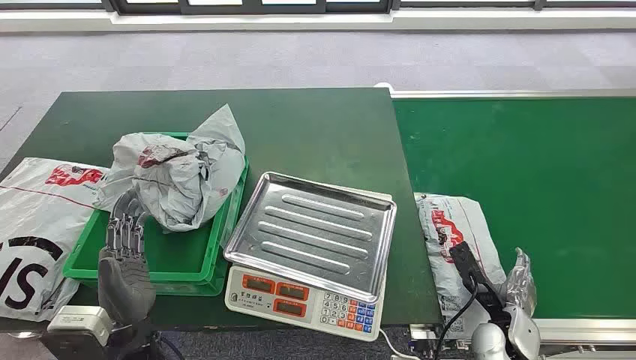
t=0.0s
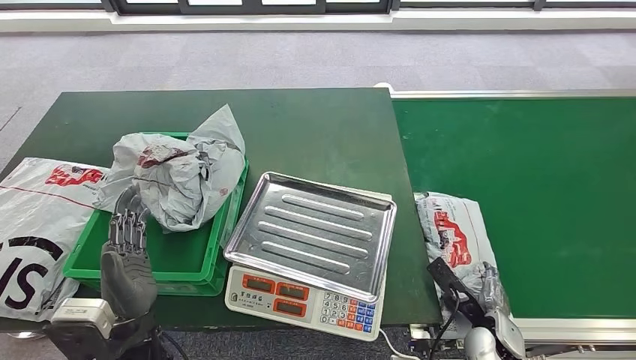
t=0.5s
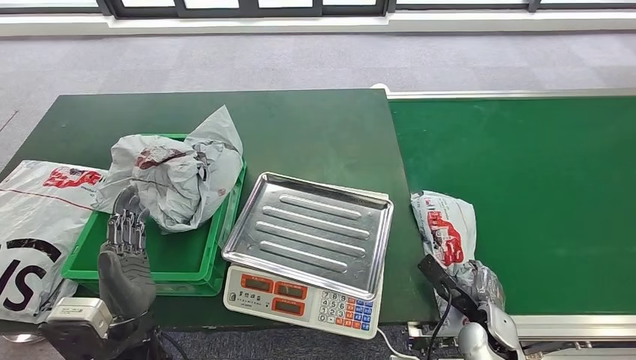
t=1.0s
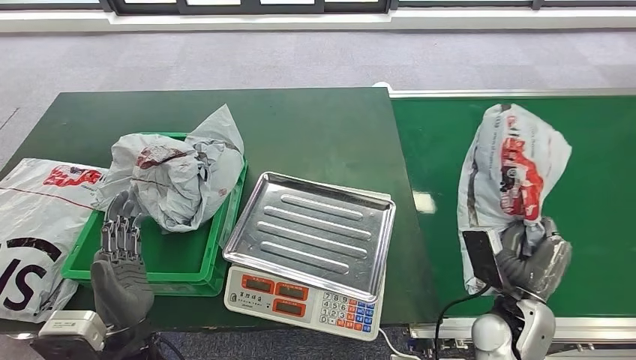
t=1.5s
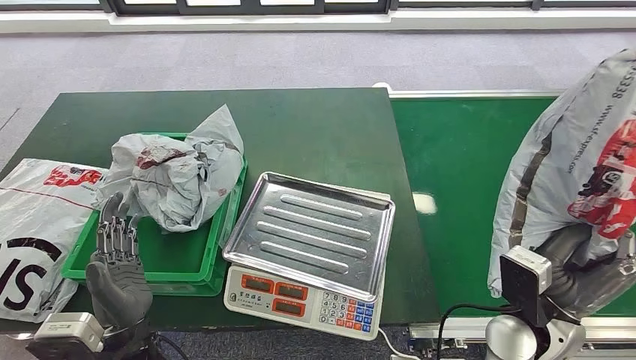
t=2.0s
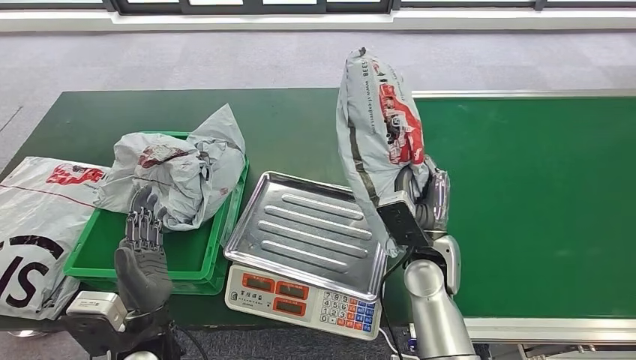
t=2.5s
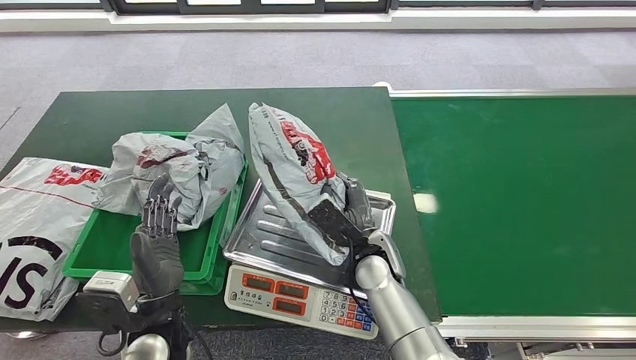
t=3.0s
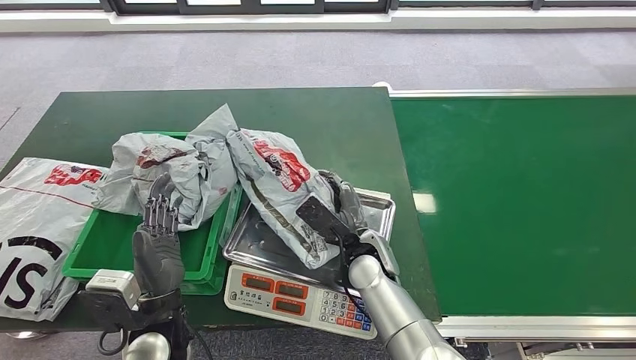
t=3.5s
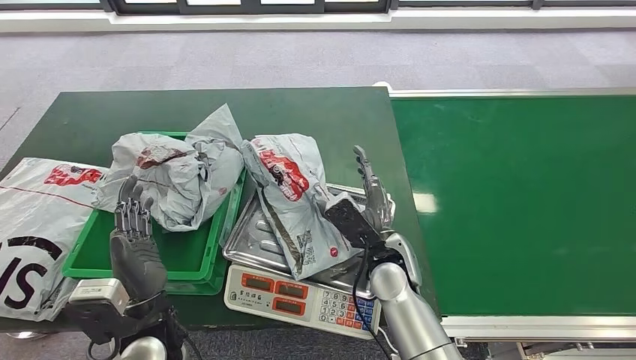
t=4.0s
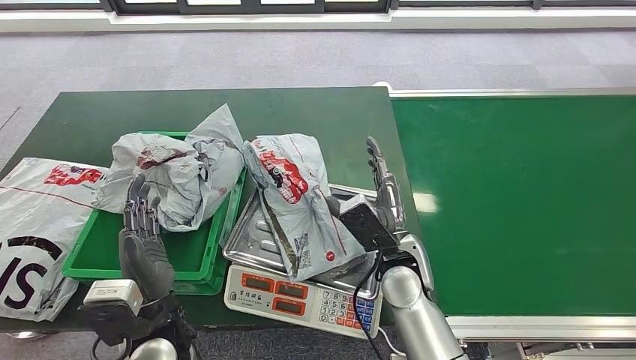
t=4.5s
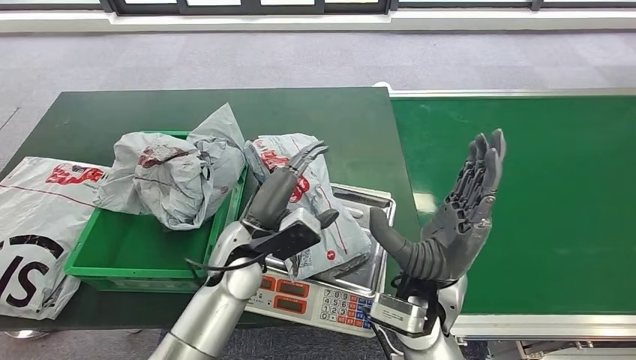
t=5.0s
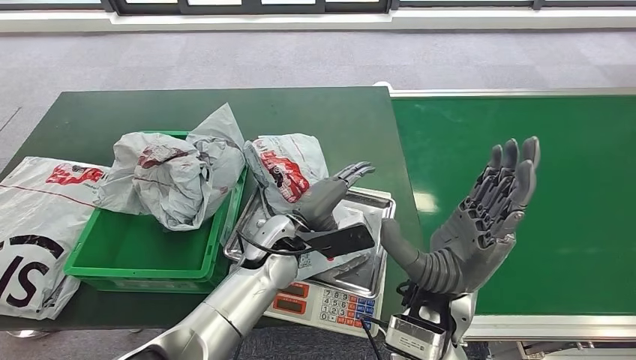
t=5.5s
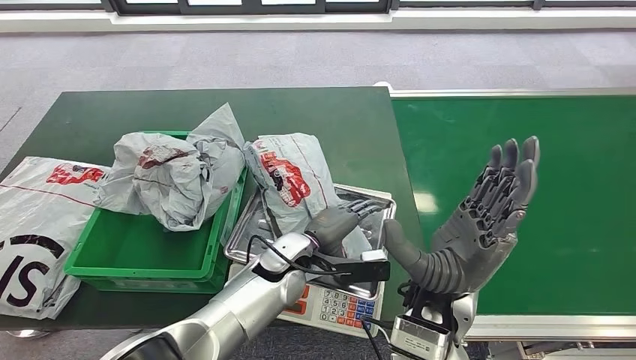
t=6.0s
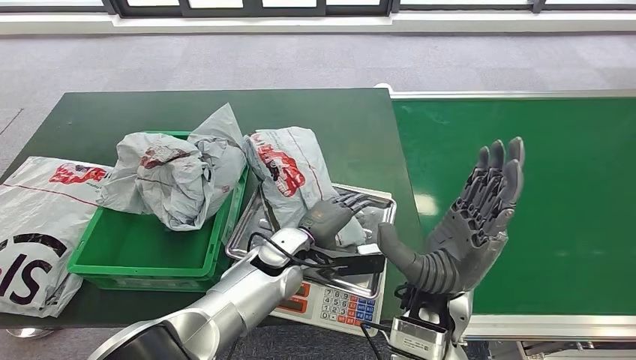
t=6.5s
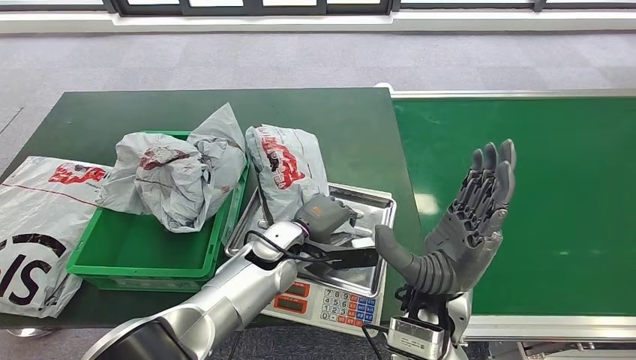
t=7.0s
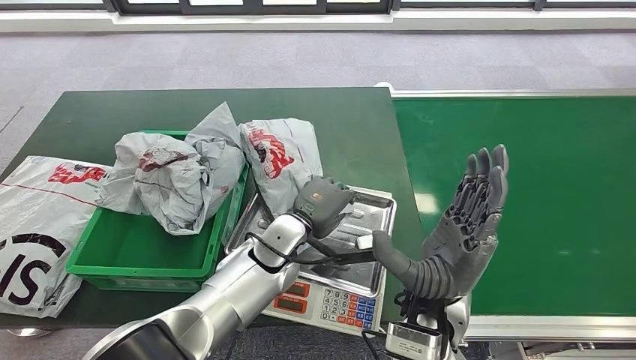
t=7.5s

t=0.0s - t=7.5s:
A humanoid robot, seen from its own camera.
Step, t=0.0s - t=1.0s: Pick up the package from the conveyor belt.
Step, t=2.0s - t=4.0s: Place the package onto the inbound machine.
Step, t=4.5s - t=7.5s: Pick up the package from the inbound machine.
t=4.0s - t=5.5s: The left hand goes some 20 cm to the right and forward, while the right hand is displaced upward and backward by about 10 cm.
